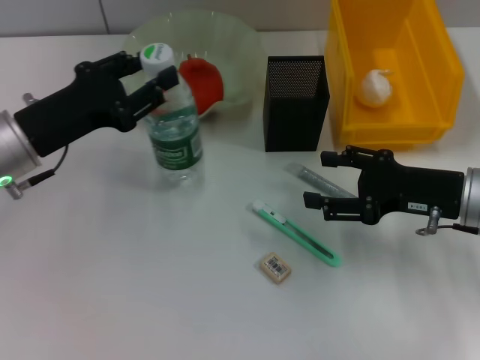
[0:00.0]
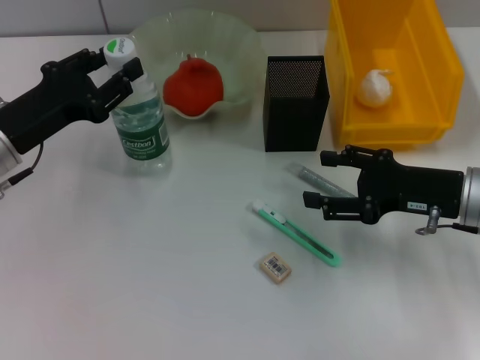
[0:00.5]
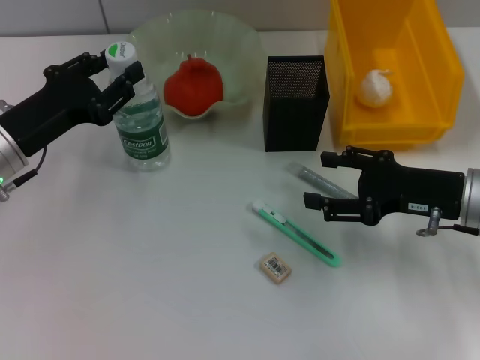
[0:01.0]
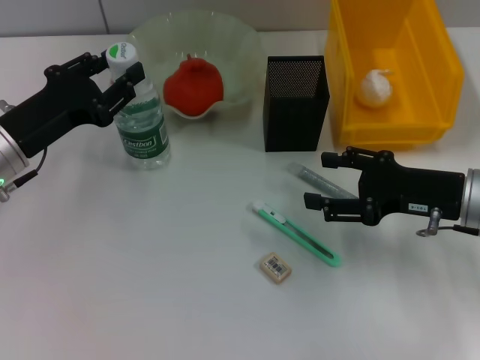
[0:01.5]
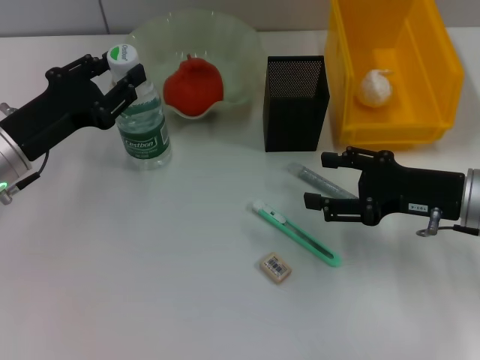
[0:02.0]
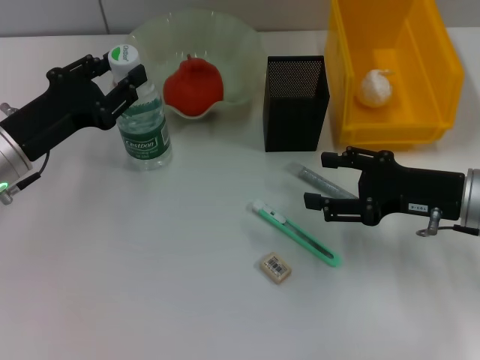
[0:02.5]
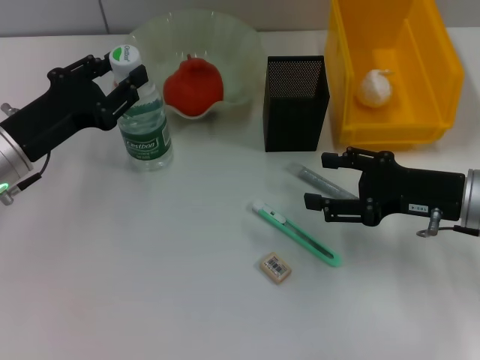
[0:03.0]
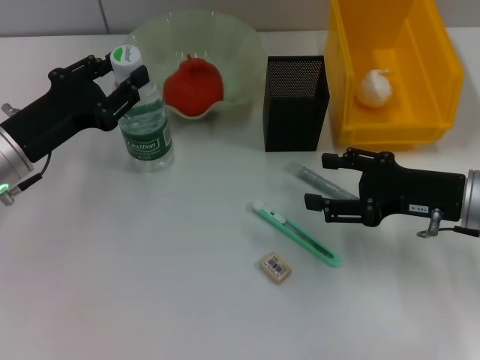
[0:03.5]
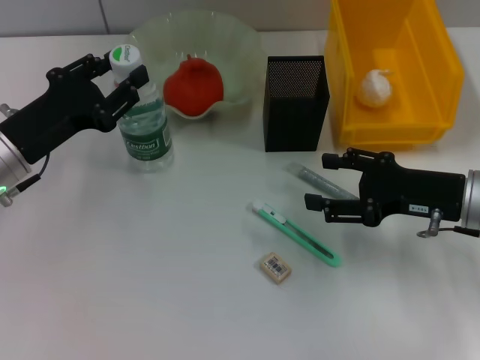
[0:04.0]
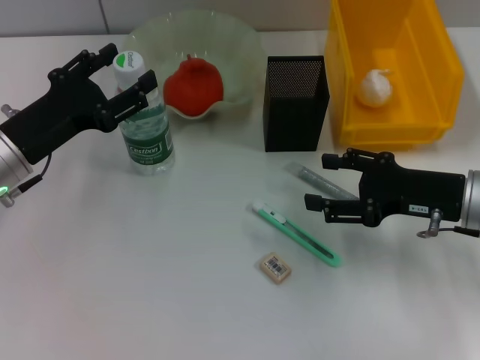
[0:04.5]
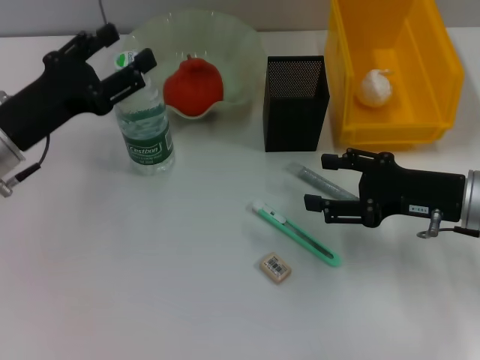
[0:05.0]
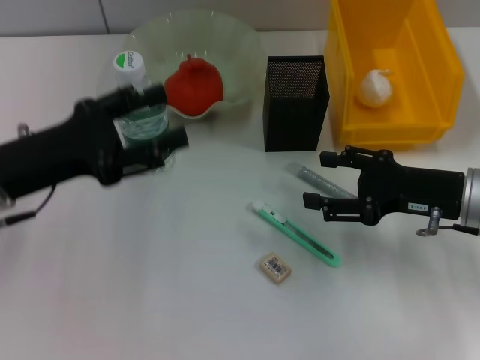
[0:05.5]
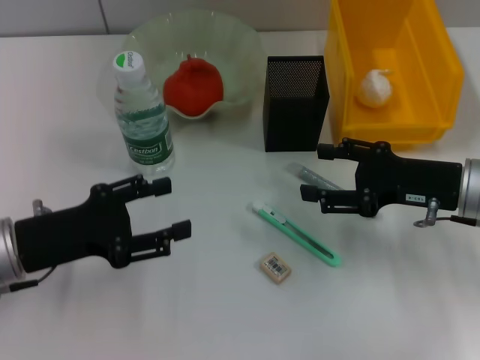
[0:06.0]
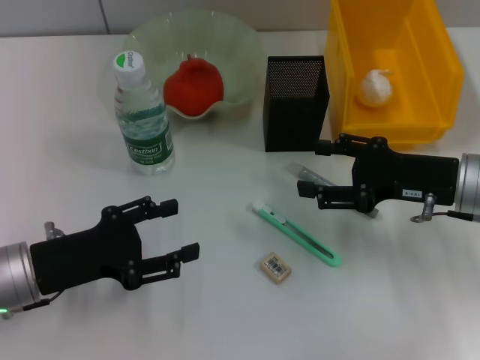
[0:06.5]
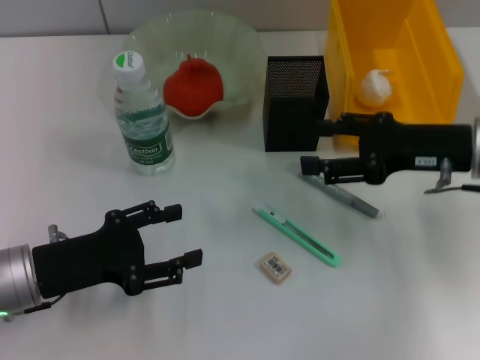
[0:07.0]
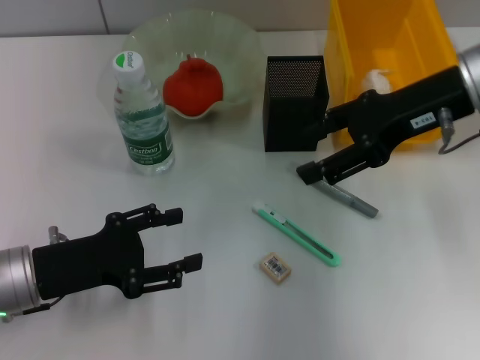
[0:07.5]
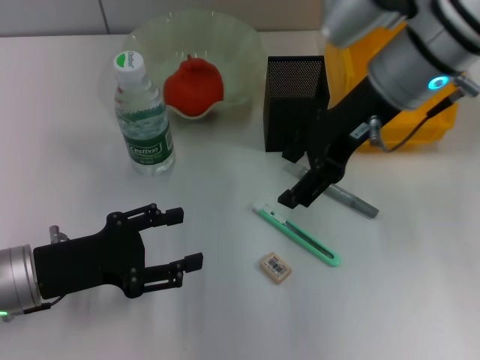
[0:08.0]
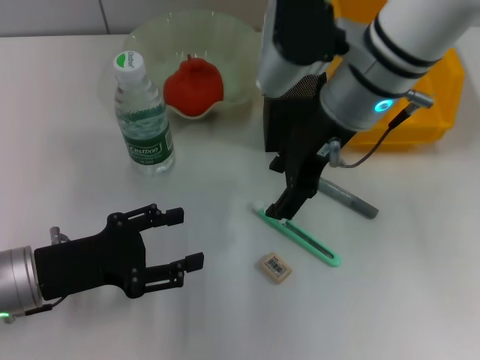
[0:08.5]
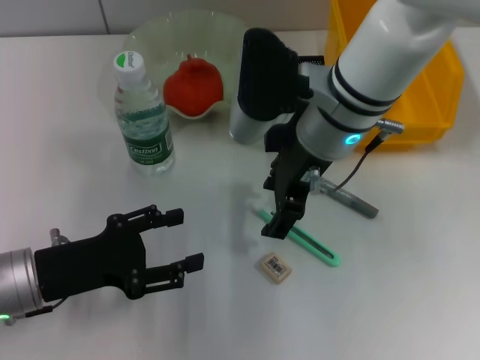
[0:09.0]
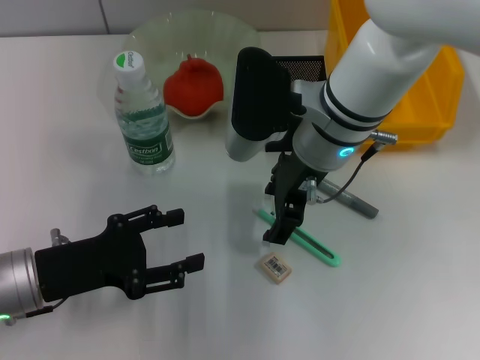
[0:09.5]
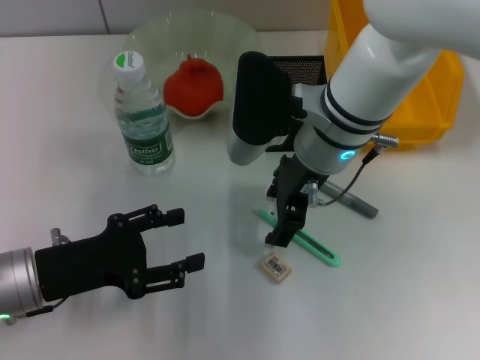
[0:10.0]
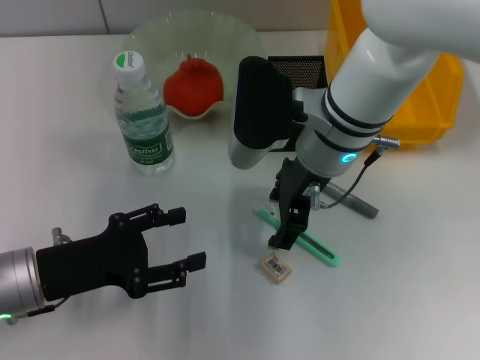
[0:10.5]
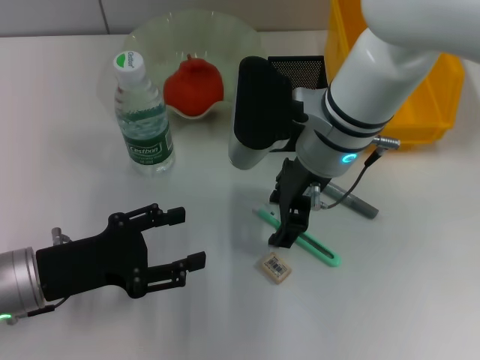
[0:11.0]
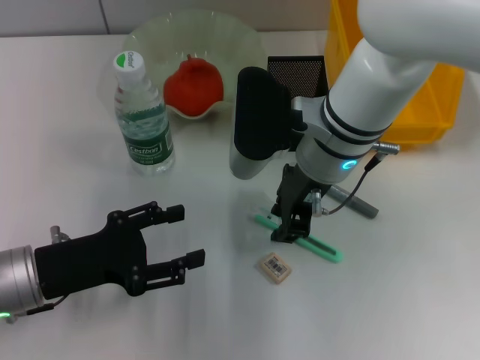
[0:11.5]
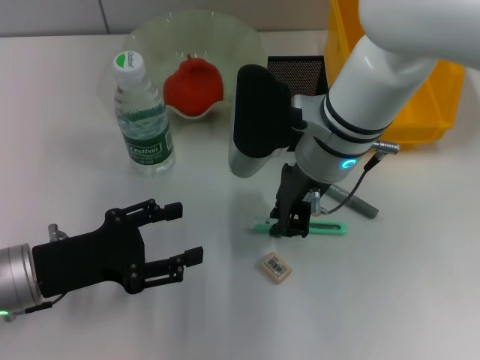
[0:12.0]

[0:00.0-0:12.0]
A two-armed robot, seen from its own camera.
Step, 0:00.0 to 0:05.0: Place the water bottle on the table with the left hand.
0:00.0 to 0:02.0: The grippers stay close to where they were, moving slightly.
0:02.0 to 0:04.0: Both grippers stay about where they are.
0:04.0 to 0:06.0: The left gripper travels backward by approximately 5 cm, and opens its fingers.
0:06.0 to 0:08.0: The right gripper travels upward, to the left and forward by about 20 cm.
0:08.0 to 0:10.0: The right gripper is displaced downward and to the left by some 10 cm.
0:10.0 to 0:12.0: The right gripper closes up.

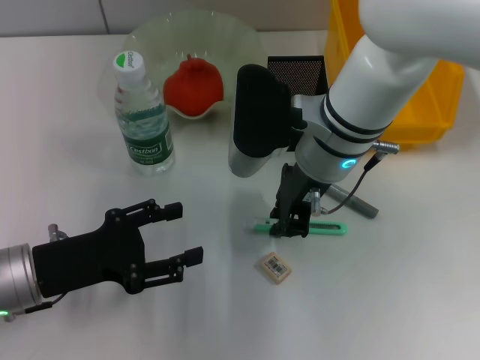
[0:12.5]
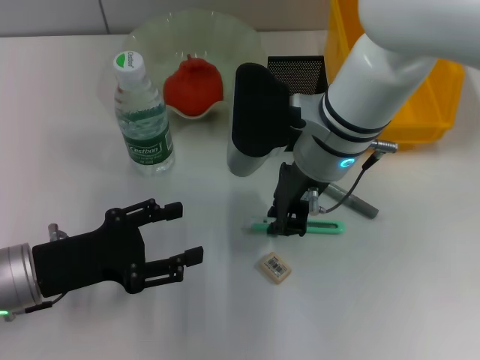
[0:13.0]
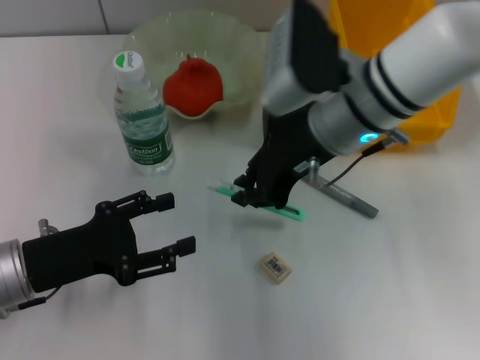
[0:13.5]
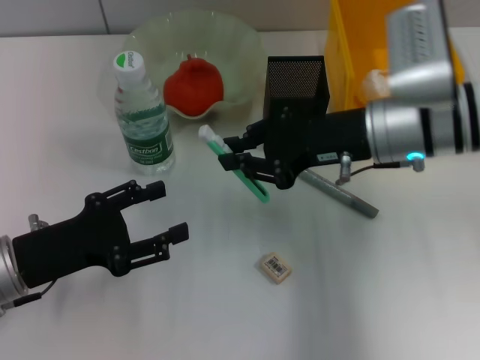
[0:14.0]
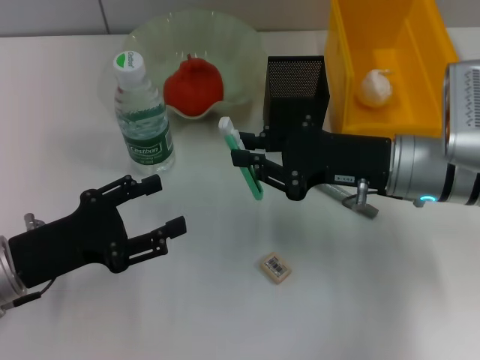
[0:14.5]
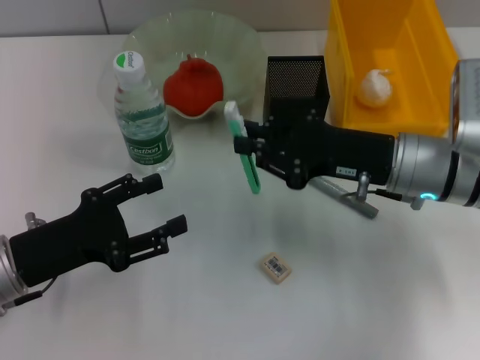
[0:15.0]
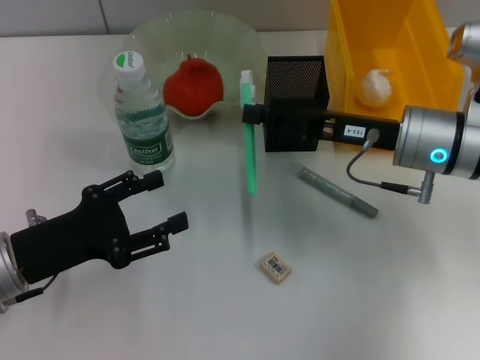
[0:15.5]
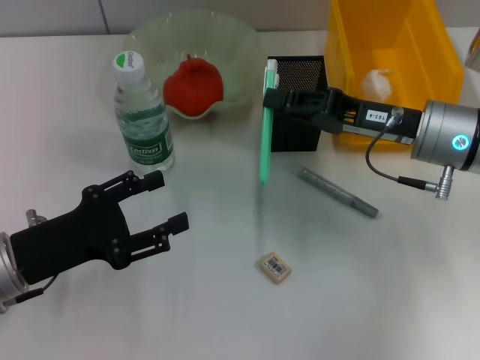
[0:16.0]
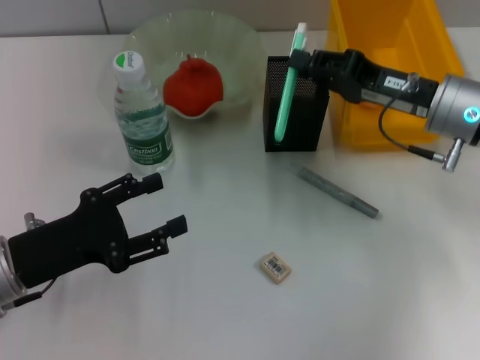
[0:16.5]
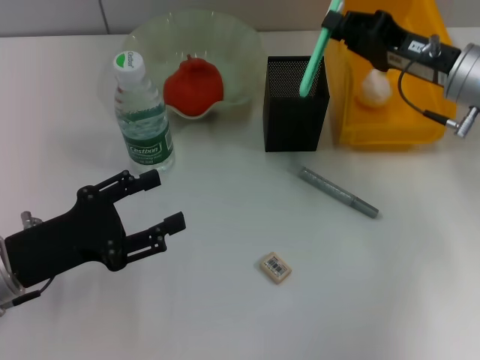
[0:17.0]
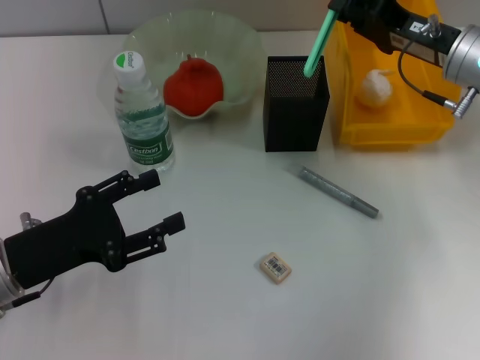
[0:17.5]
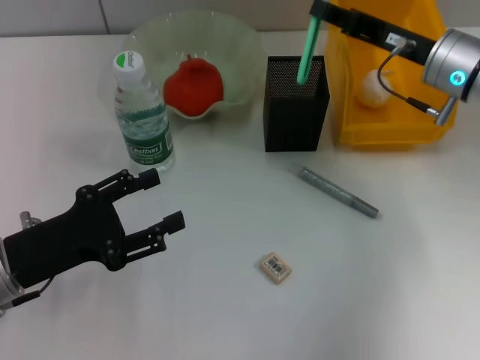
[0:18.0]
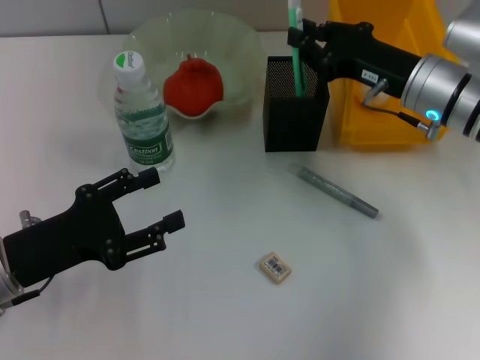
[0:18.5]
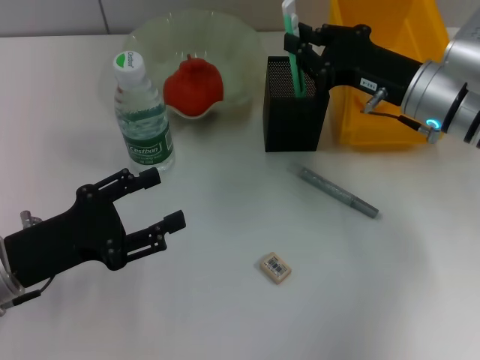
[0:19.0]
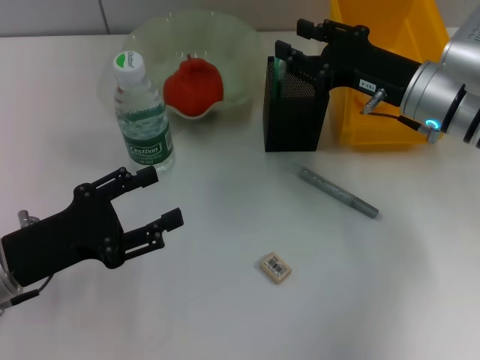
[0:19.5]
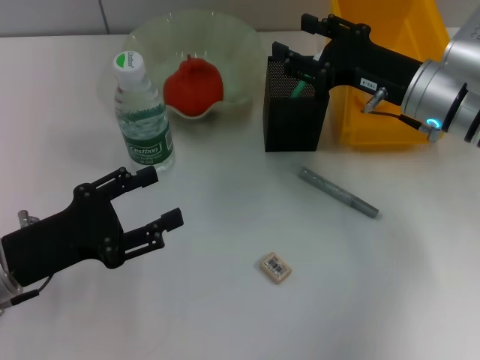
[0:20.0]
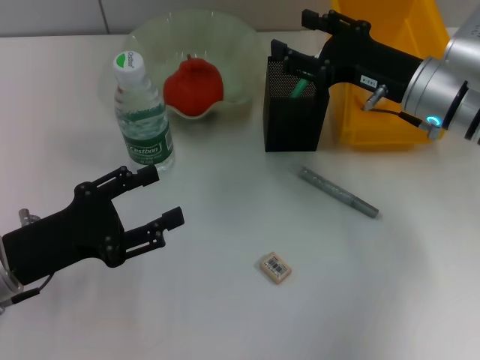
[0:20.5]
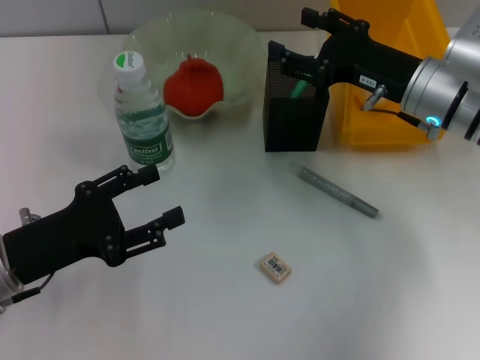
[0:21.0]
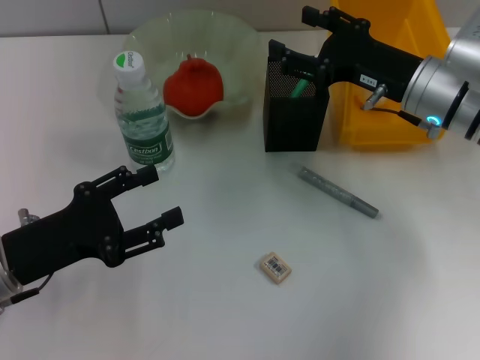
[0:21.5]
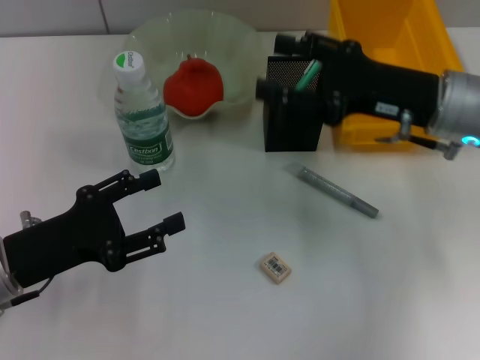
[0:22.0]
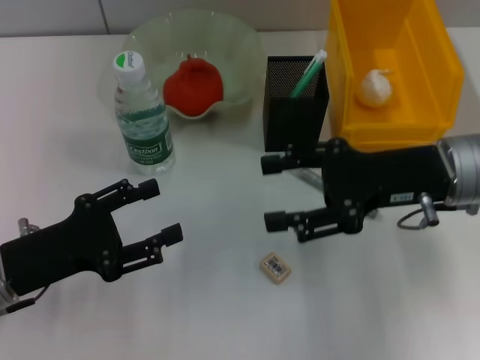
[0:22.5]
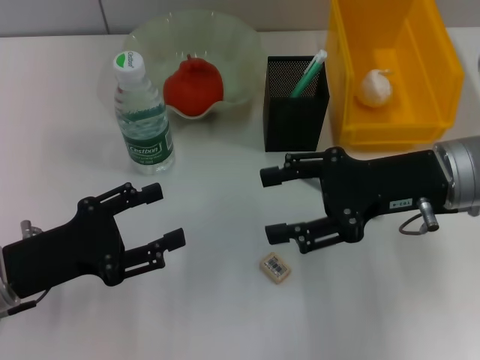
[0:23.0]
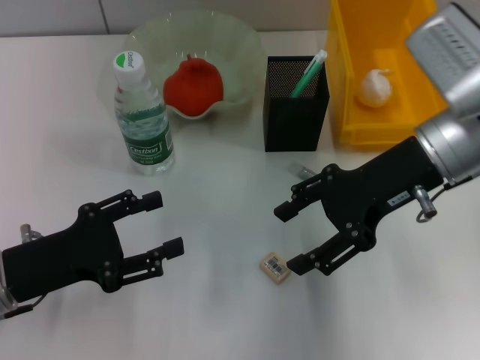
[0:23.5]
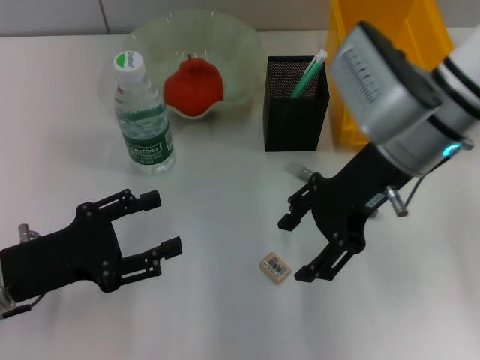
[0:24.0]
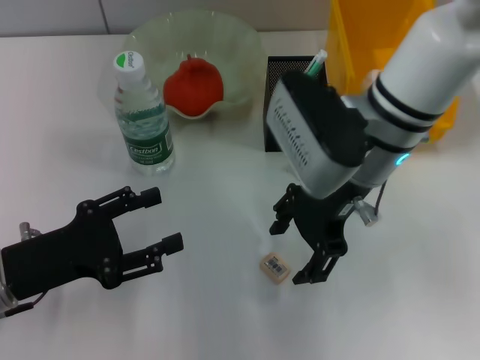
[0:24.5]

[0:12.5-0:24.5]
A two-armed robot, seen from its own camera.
Step, 0:13.5 to 0:19.5: Place the blue utility knife into the pen holder with the right hand.
0:12.5 to 0:14.5: The right gripper goes roughly 10 cm to the right.
0:14.5 to 0:16.5: The right gripper moves approximately 5 cm.
0:18.5 to 0:20.5: The right gripper opens up.
0:20.5 to 0:22.5: The right gripper travels backward by about 5 cm.
0:22.5 to 0:24.5: The right gripper travels to the left by approximately 10 cm.

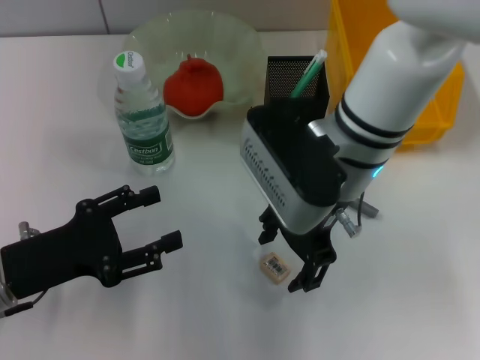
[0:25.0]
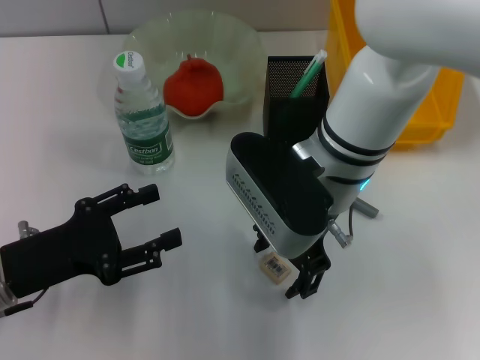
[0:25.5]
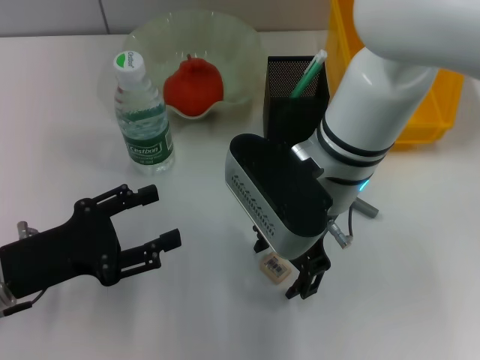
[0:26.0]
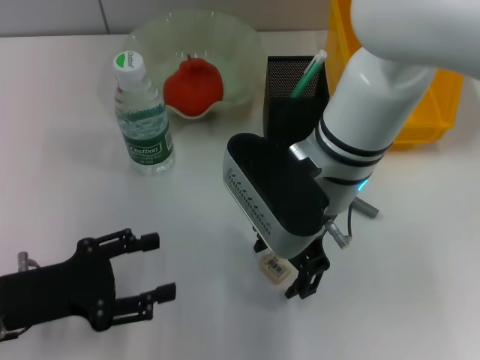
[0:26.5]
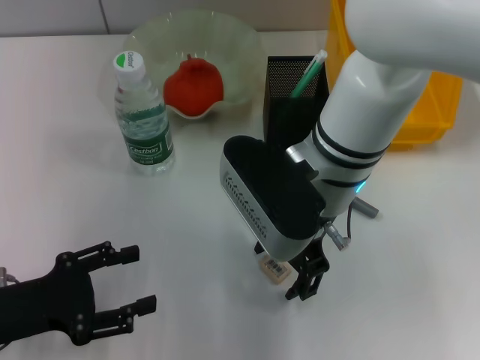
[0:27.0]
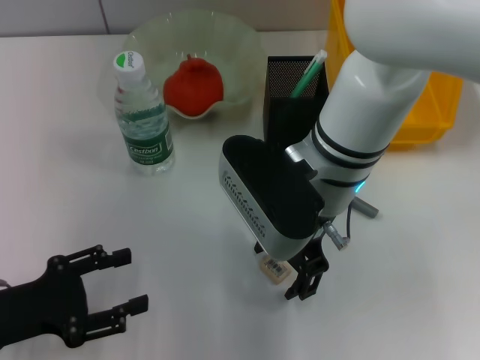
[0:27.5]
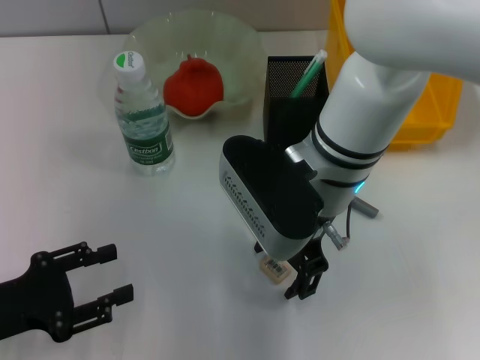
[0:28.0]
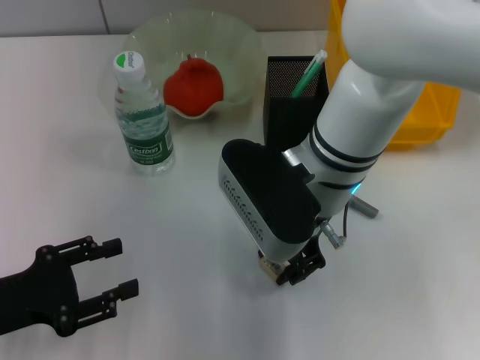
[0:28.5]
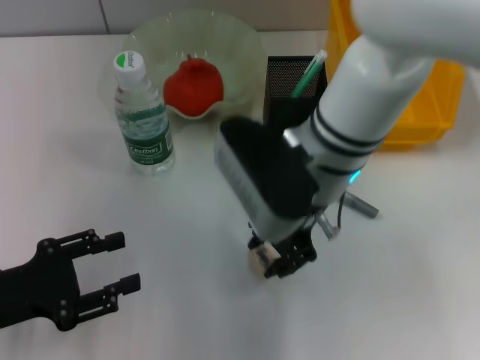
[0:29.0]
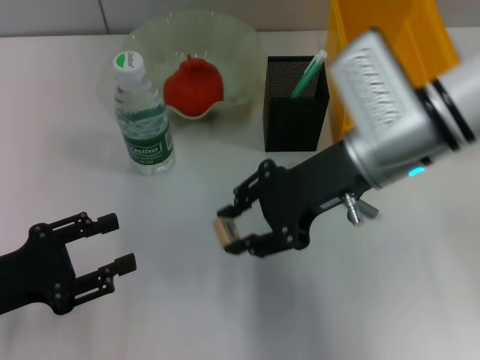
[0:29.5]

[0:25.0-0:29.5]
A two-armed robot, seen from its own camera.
Step, 0:25.0 to 0:28.0: Grab the eraser with the right hand.
0:27.0 to 0:29.5: The right gripper shifts some 5 cm to the right, and closes its fingers.
